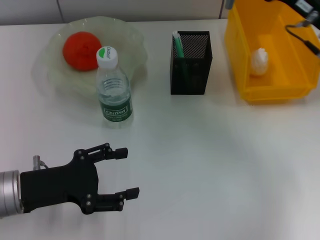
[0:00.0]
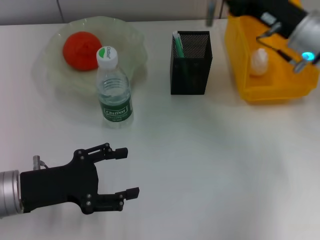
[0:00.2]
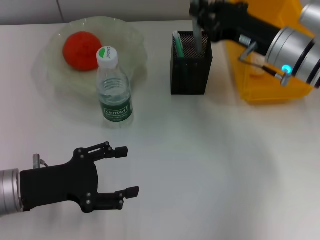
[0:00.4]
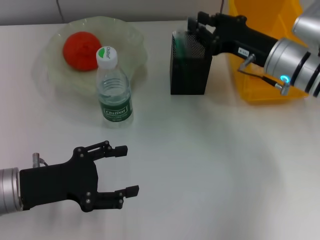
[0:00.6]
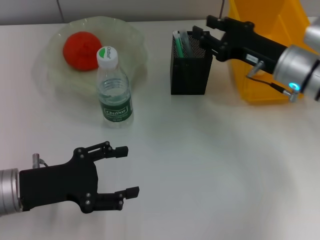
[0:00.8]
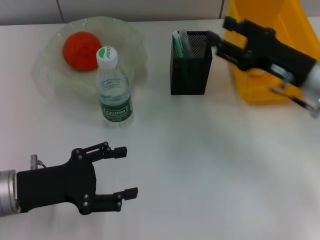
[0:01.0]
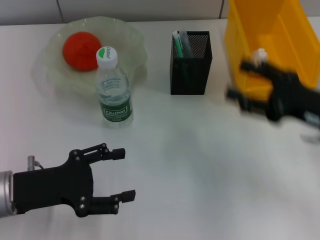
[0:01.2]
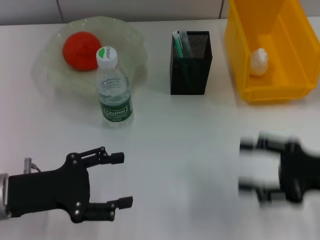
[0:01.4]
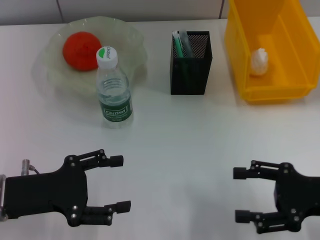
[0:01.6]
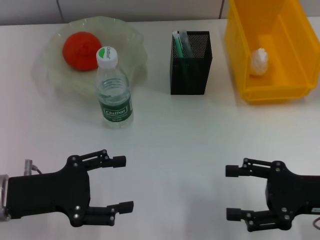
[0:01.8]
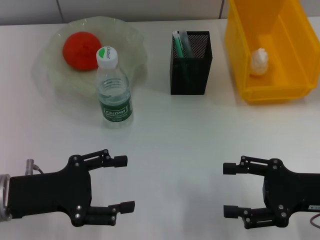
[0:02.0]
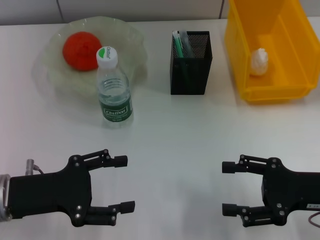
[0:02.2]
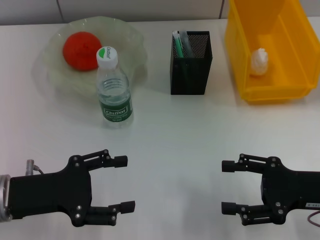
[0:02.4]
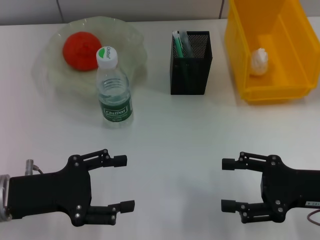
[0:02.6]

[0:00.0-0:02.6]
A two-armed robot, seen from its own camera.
0:00.0 to 0:01.2: The right gripper shifts approximately 10 cm backward and downward, and opens.
0:01.2 to 0:02.6: The right gripper moves backward, roughly 5 cm.
